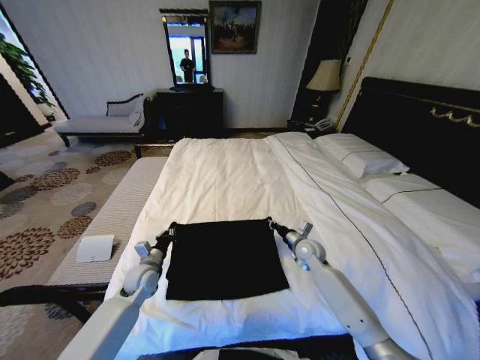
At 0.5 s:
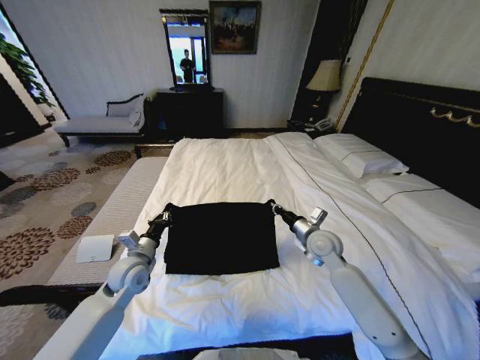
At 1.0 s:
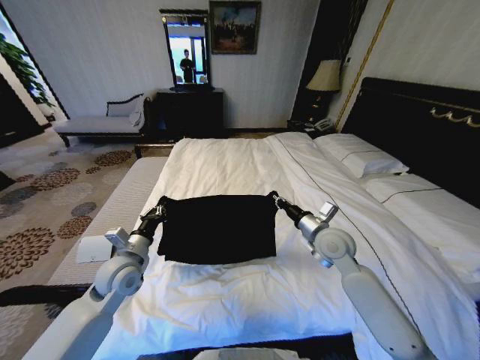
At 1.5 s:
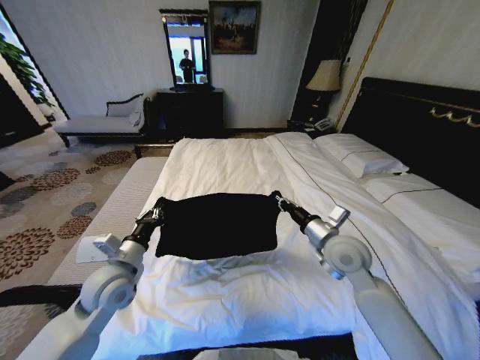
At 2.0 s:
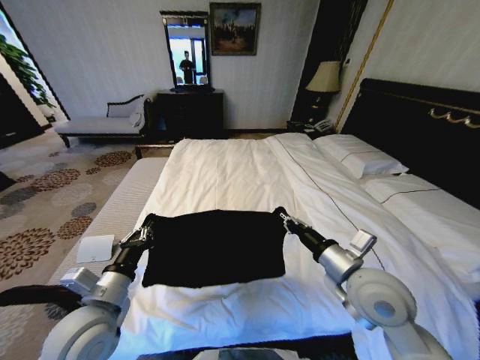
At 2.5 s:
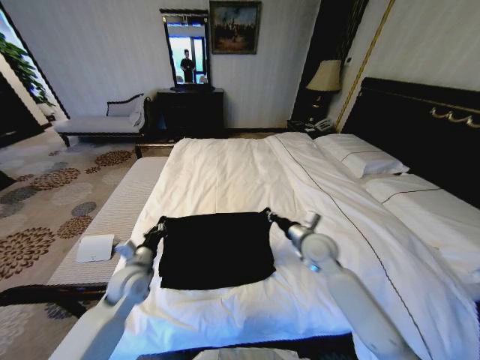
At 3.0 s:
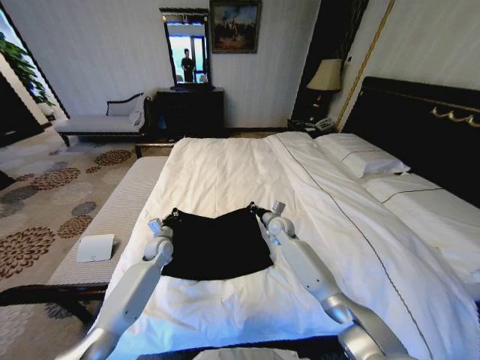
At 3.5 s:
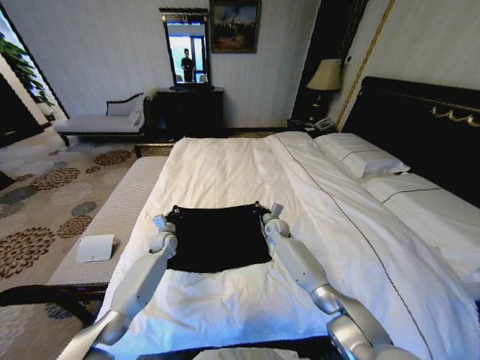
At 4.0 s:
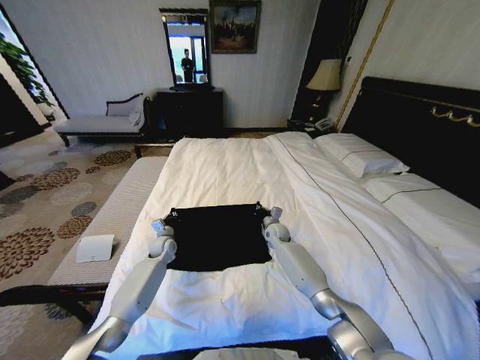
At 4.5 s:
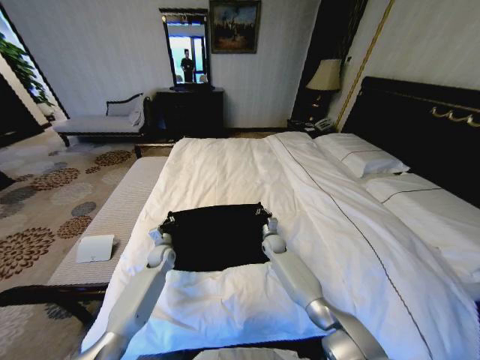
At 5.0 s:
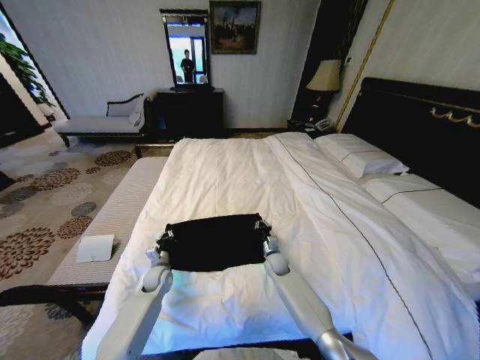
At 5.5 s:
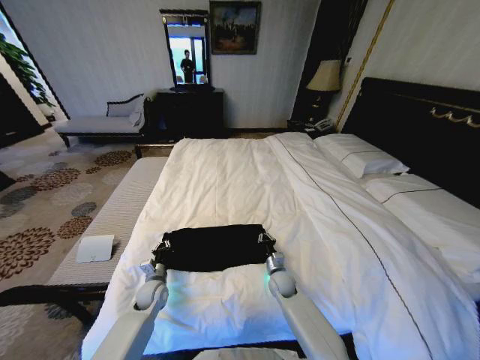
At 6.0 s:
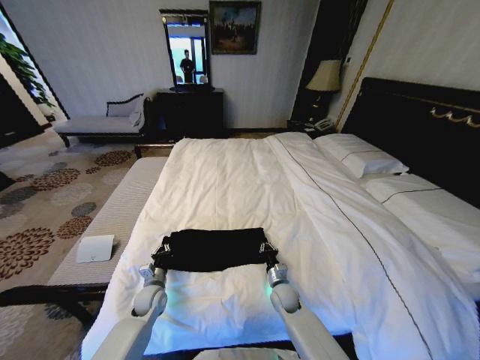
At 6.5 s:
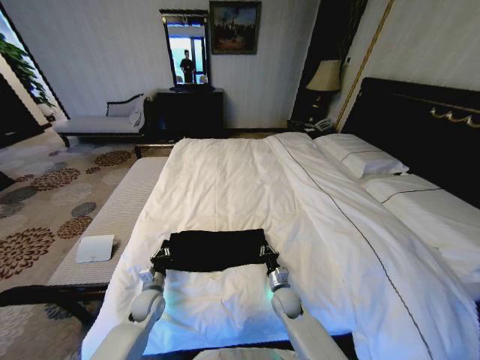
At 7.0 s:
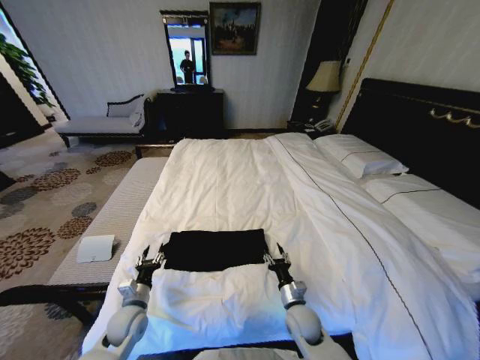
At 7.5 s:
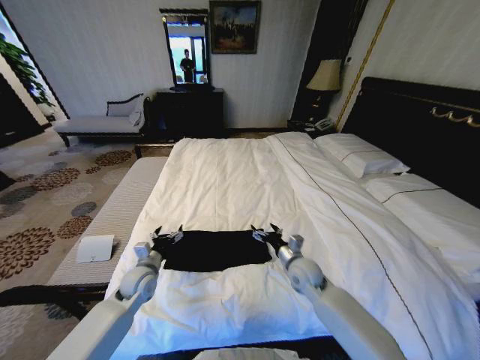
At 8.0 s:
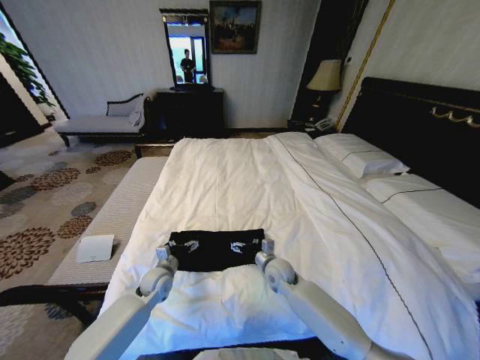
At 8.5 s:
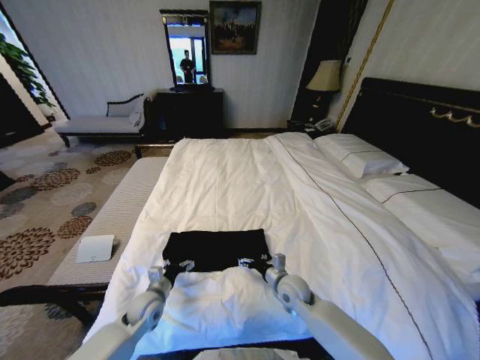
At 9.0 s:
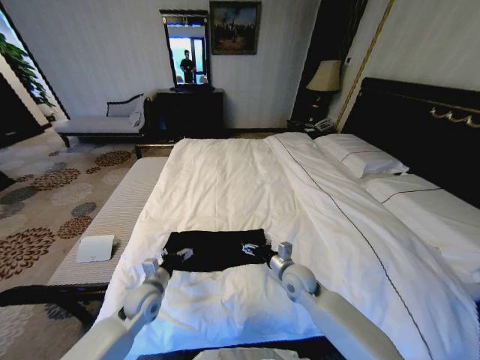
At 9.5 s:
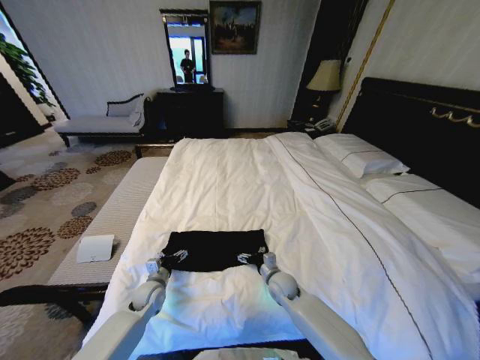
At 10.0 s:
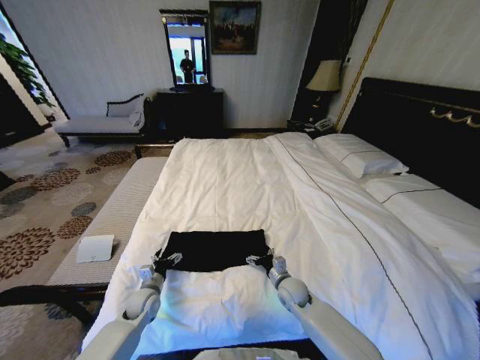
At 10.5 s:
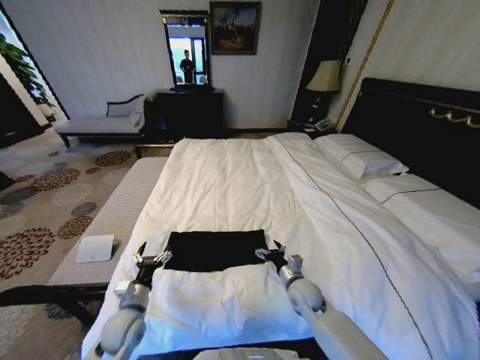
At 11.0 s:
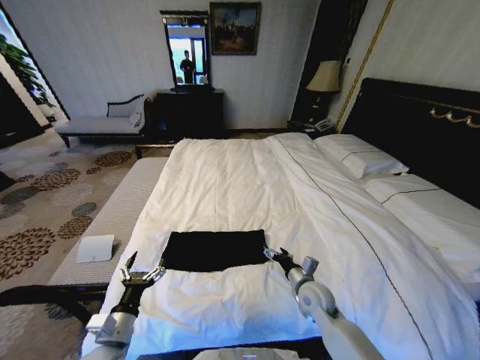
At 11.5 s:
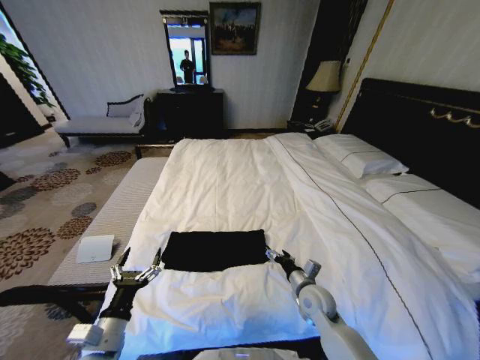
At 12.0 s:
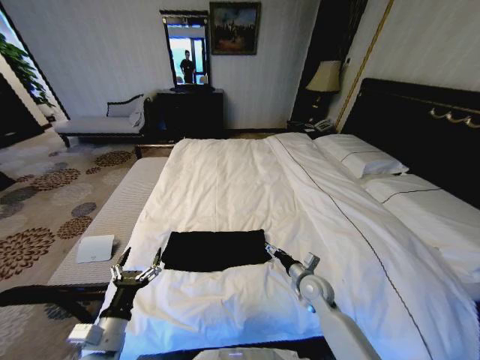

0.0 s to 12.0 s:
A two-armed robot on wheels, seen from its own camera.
Task of the whole recording: Fold the clothes on the bed.
0.0 to 2.0 s: The right gripper travels backward and upward by about 25 cm, while the left gripper is displaced upward and backward by about 25 cm.
2.0 to 4.0 s: Both grippers travel together forward and downward, about 35 cm.
4.0 to 6.0 s: The left gripper is displaced backward by some 15 cm. The right gripper travels backward and downward by about 25 cm.
6.0 to 8.0 s: The left gripper shifts some 5 cm upward, moves some 5 cm backward and comes back, and opens up, while the right gripper travels upward by about 10 cm, and opens its fingers.
8.0 to 10.0 s: The left gripper shifts by about 10 cm, while the right gripper changes place by approximately 10 cm.
10.0 to 12.0 s: The left gripper shifts roughly 20 cm backward and upward; the right gripper shifts roughly 5 cm to the right.

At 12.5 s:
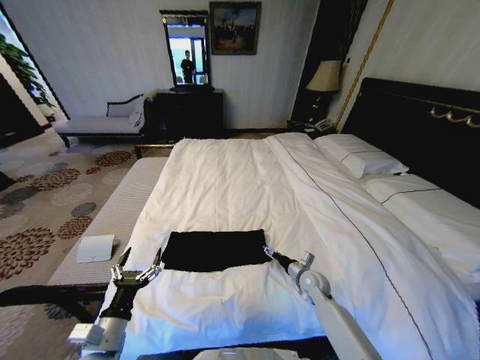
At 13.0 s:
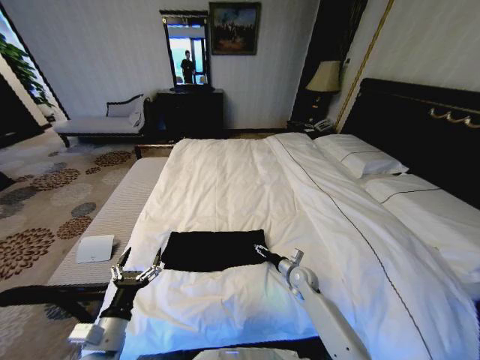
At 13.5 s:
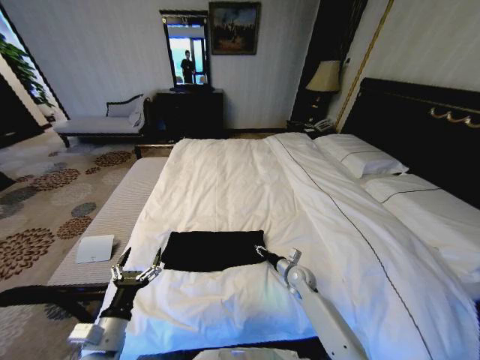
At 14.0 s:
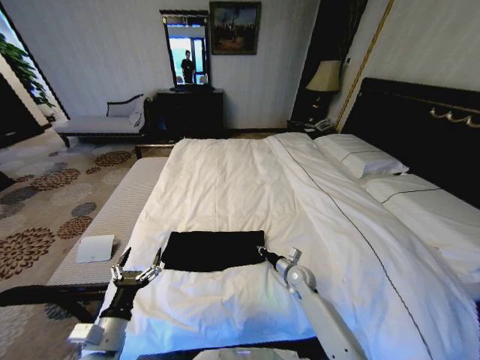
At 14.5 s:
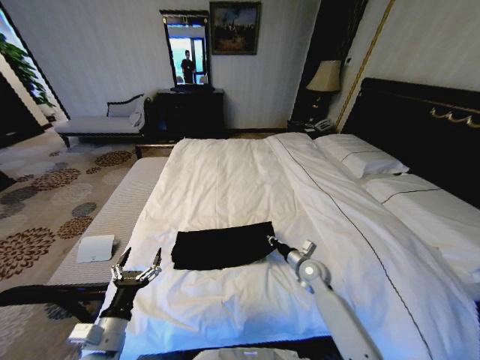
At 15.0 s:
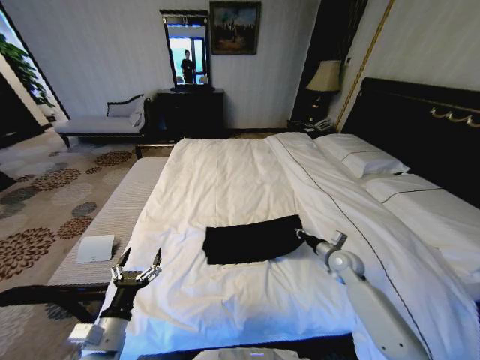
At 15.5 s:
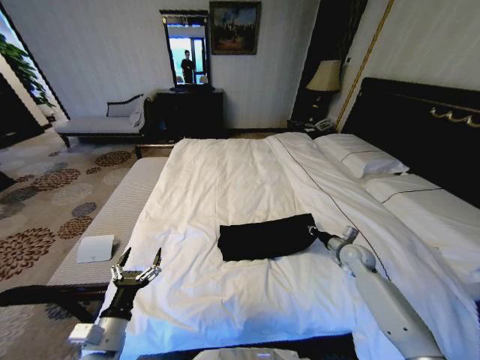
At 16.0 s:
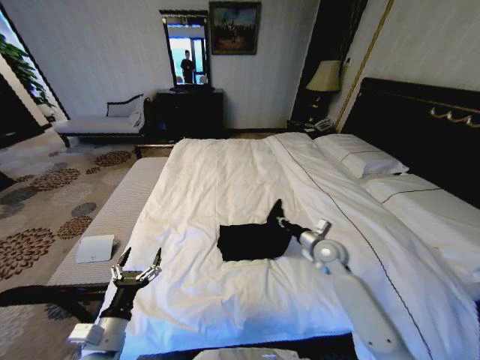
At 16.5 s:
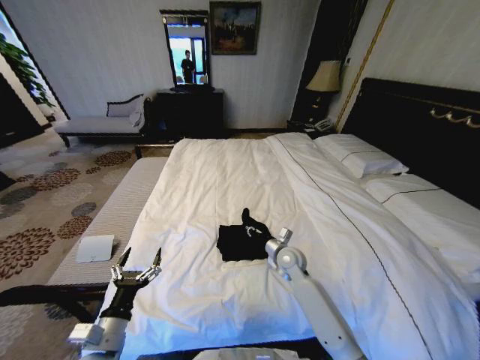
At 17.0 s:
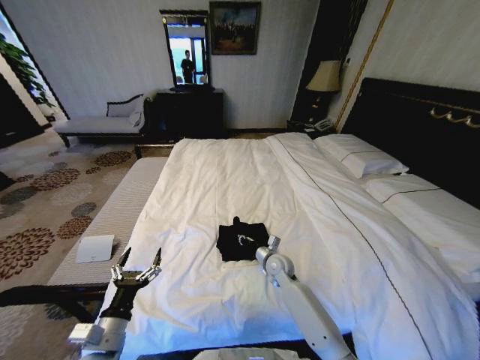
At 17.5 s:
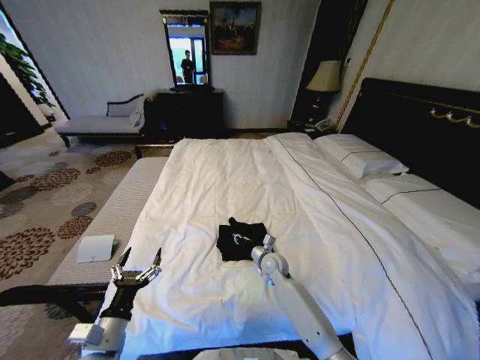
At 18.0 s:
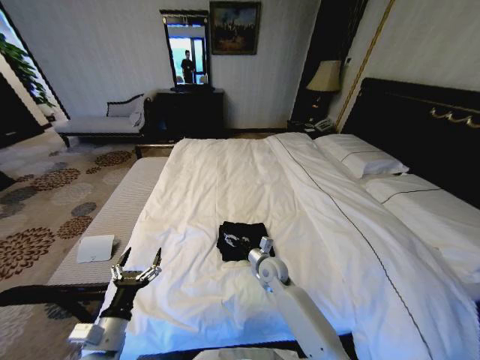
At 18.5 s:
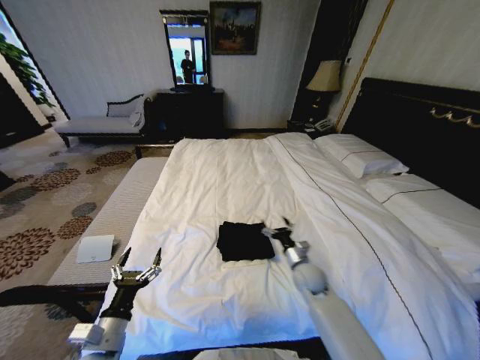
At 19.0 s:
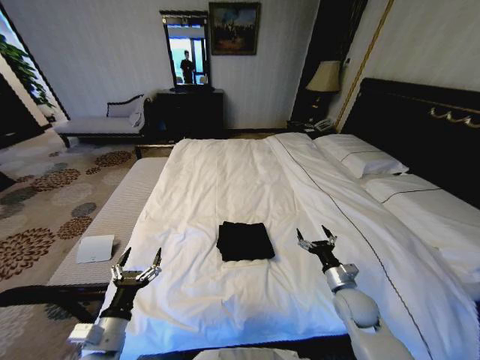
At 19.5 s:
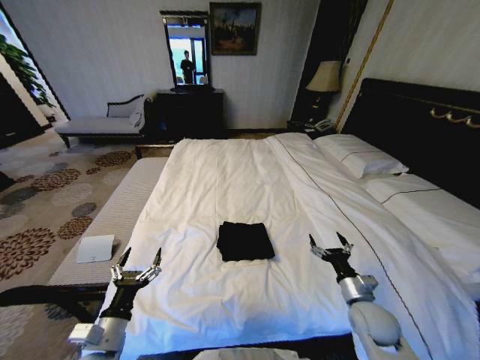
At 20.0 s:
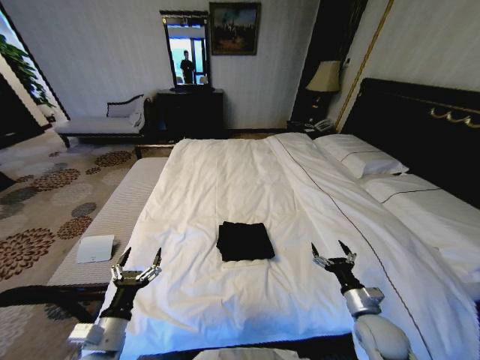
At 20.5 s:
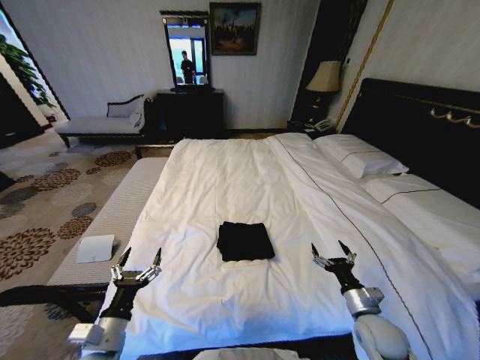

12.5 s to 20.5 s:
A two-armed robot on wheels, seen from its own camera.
Task of the whole recording: Fold the clothes on the bed.
12.5 to 14.5 s: The right gripper moves some 5 cm, and closes its fingers.
14.5 to 16.5 s: The right gripper goes to the right and returns, approximately 15 cm each way.
16.5 to 18.5 s: The right gripper is displaced backward by about 5 cm, and opens.
18.5 to 20.5 s: The right gripper is displaced backward and to the right by about 20 cm.

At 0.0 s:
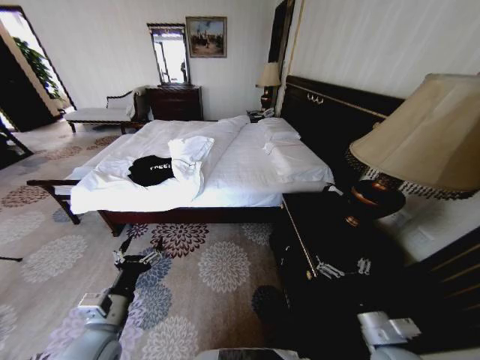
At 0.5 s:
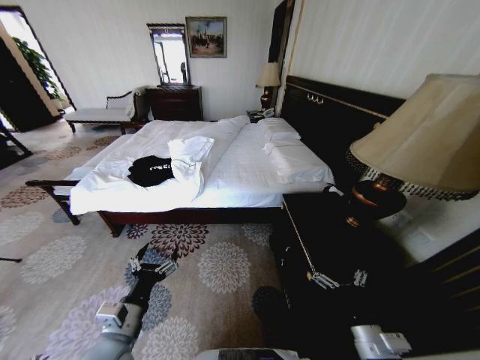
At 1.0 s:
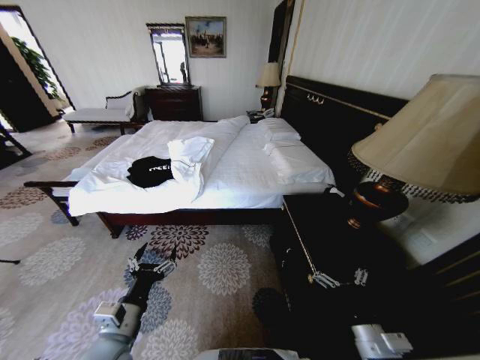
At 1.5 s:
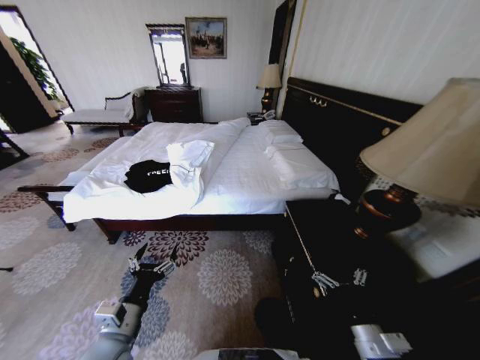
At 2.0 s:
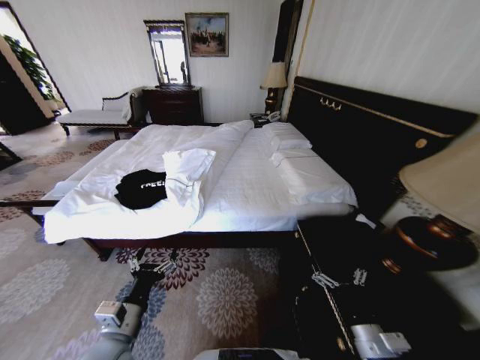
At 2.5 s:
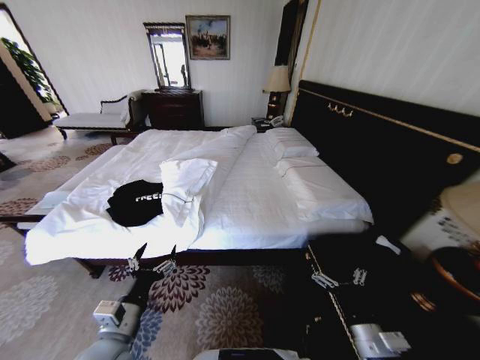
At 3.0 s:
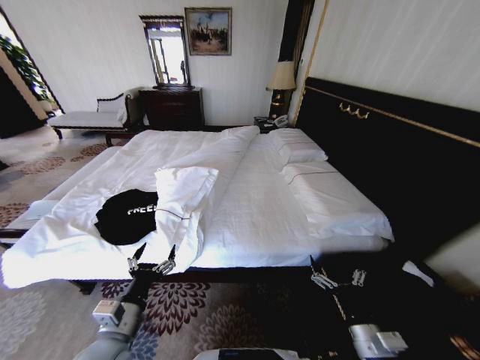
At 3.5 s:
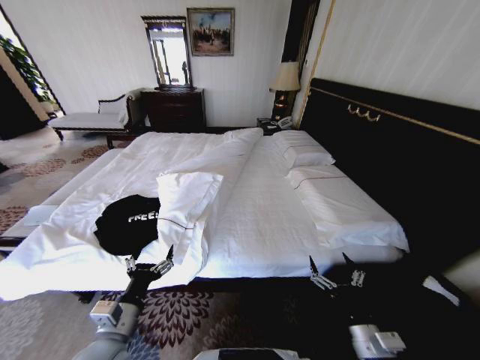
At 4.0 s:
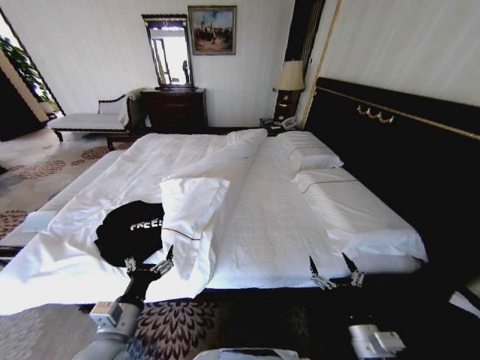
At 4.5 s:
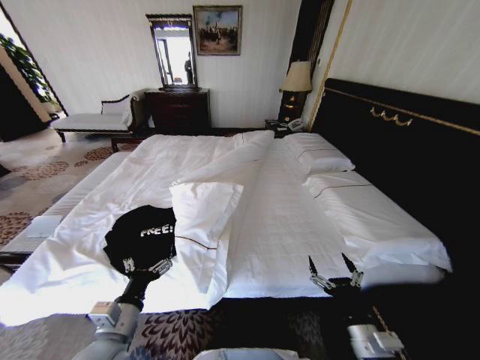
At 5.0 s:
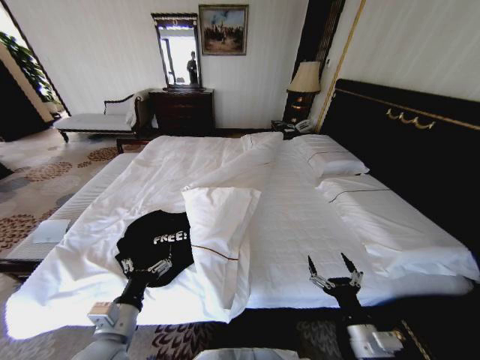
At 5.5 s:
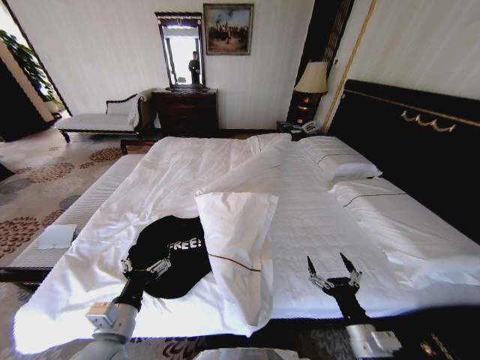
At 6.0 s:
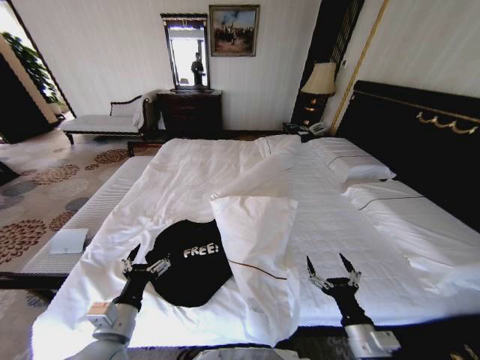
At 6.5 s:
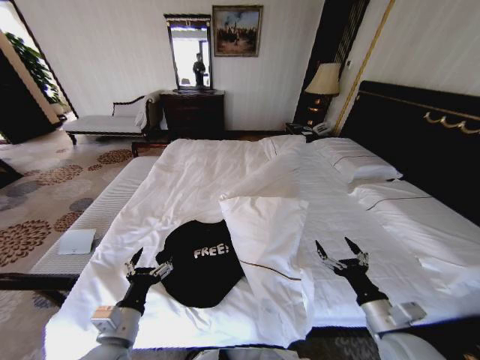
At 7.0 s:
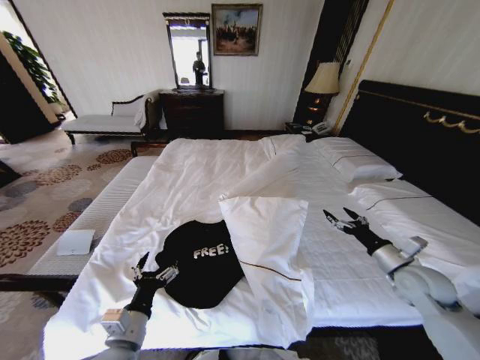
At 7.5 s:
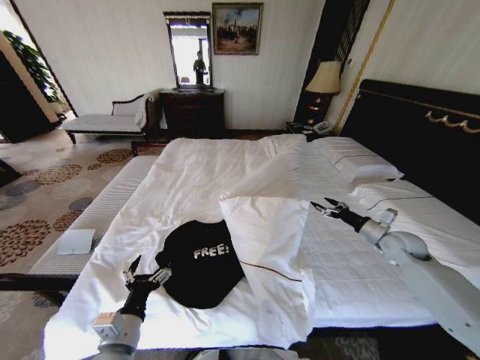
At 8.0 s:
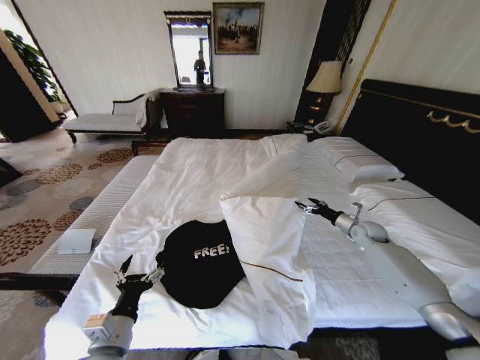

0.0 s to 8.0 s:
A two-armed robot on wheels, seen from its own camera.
Task of the whole recording: Fold the clothes on the bed.
6.0 to 8.0 s: The right gripper goes roughly 40 cm forward and to the right.
